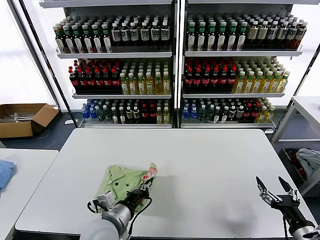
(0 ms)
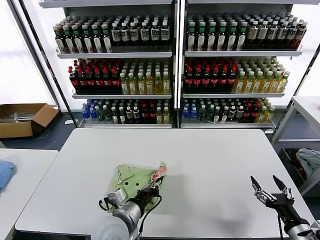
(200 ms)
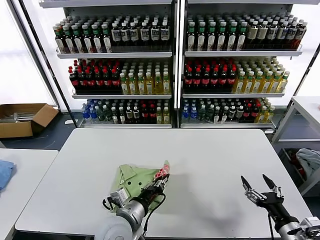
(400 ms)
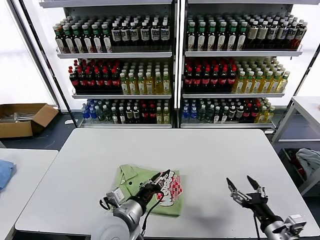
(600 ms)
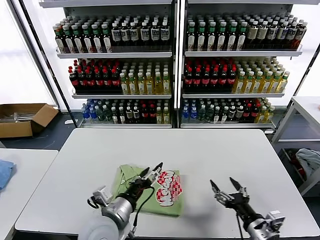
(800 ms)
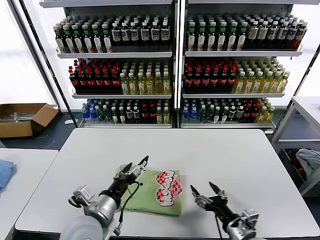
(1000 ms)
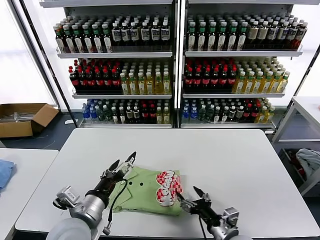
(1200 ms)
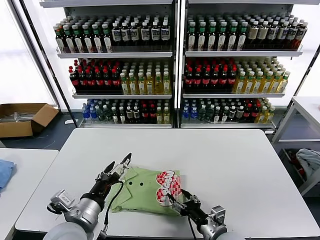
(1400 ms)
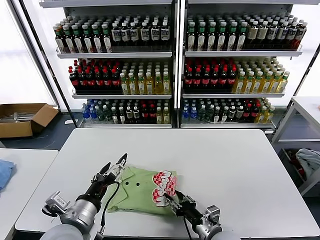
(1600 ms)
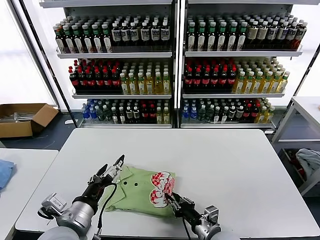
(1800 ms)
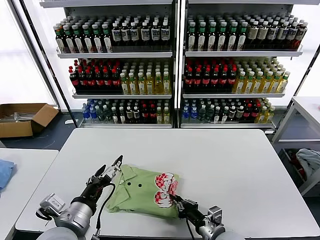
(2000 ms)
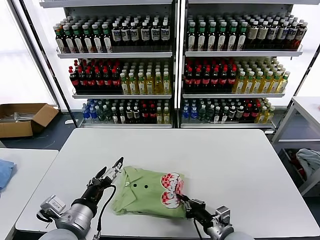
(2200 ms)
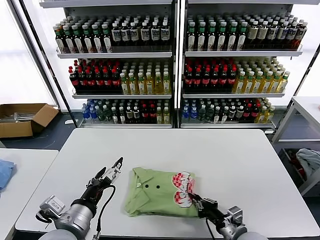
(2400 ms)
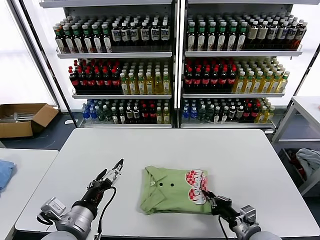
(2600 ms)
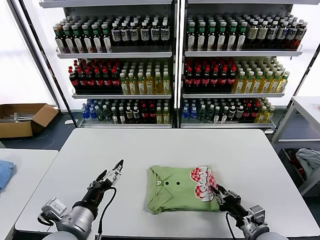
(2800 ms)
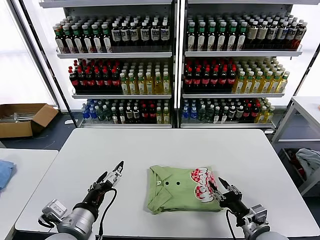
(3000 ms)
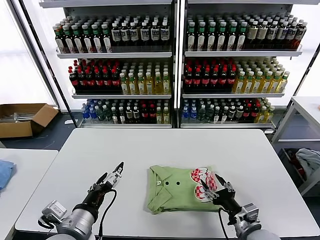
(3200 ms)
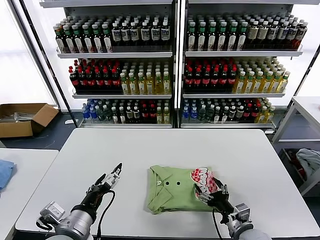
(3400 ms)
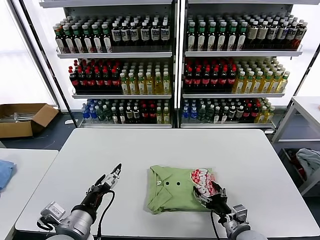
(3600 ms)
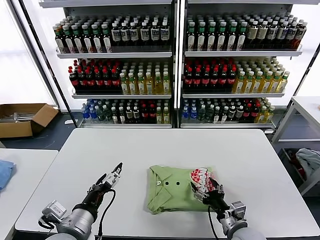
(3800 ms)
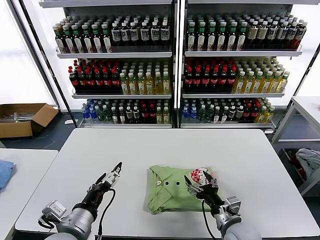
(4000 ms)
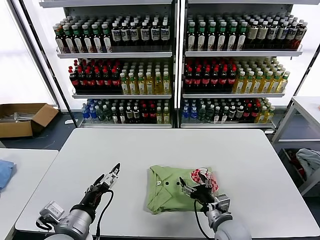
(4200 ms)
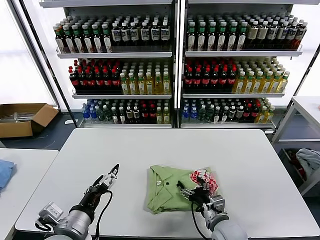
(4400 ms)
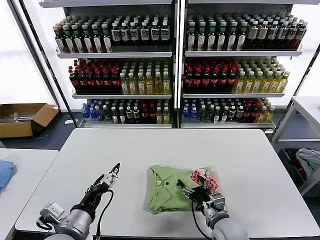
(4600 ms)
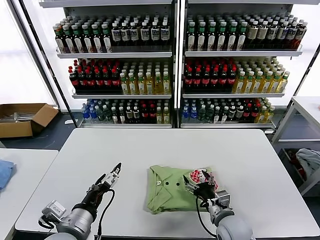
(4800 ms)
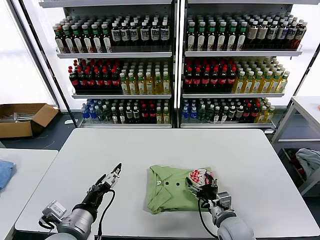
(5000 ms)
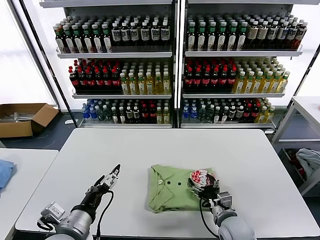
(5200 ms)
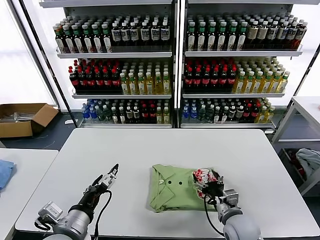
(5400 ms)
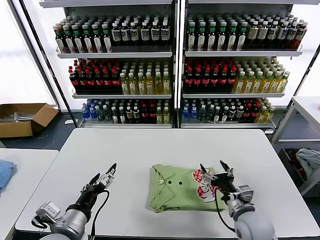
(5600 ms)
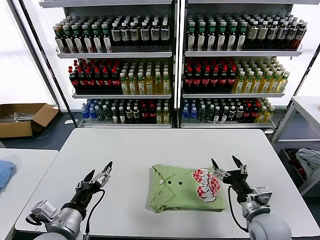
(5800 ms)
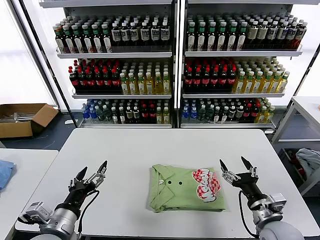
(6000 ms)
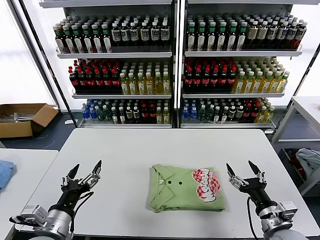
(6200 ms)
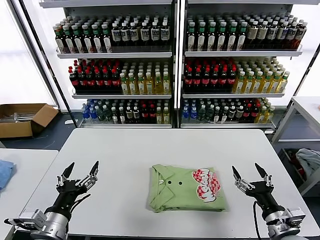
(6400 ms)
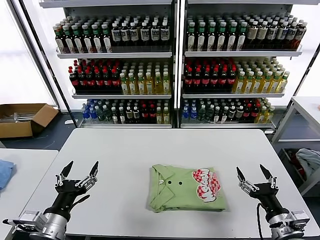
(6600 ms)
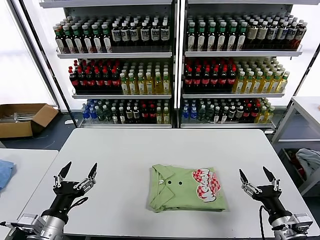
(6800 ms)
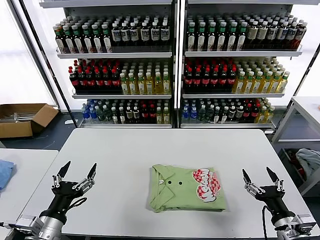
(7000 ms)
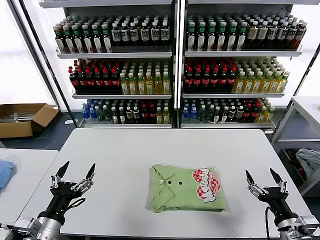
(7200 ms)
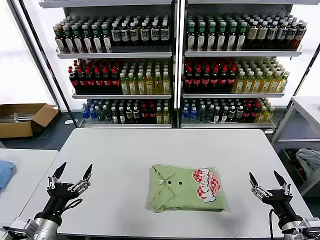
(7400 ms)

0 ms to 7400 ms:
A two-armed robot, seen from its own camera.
Task of the whole recording: fold and organize the clothes.
Step, 800 ms to 5400 ms: Drag the clothes to the center of the table.
0 ms to 1400 ms: The left gripper goes roughly 5 cm upward, and opens up. Meanwhile the right gripper travels to the left by some 20 cm.
1400 ms to 3000 ms: The right gripper heads to the right, covering some 10 cm, and closes up.
3000 ms to 4400 ms: The right gripper moves to the left, approximately 10 cm, and opens.
4400 ms to 6000 ms: The right gripper travels to the right and upward by approximately 15 cm.
6000 ms to 7400 ms: The right gripper heads backward and to the right, covering some 10 cm. The left gripper ends up about 5 cm from where it was.

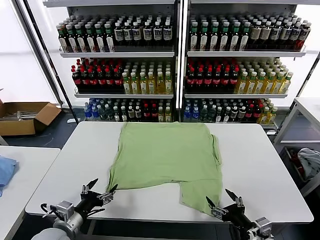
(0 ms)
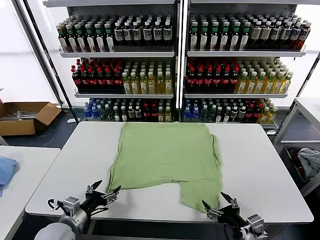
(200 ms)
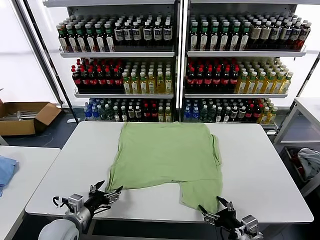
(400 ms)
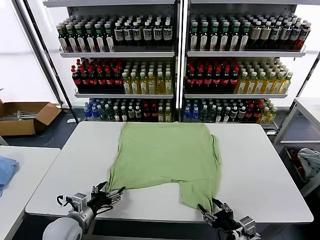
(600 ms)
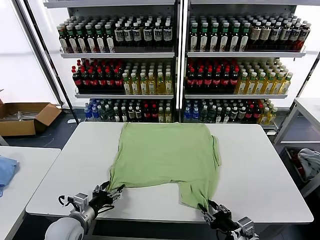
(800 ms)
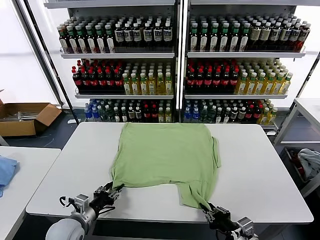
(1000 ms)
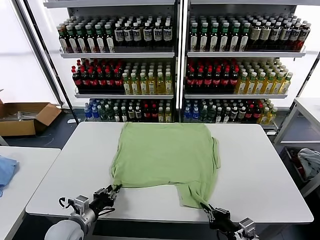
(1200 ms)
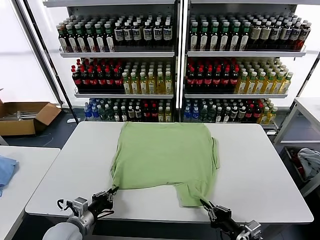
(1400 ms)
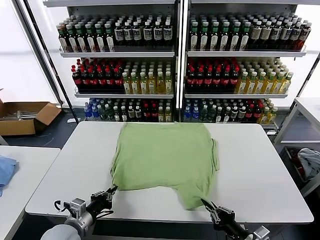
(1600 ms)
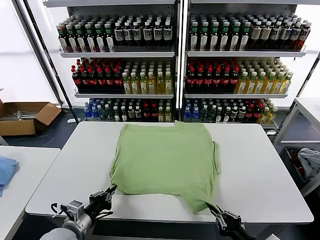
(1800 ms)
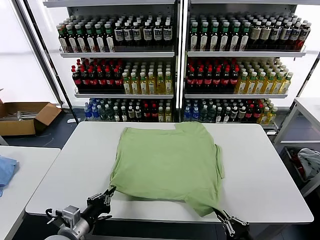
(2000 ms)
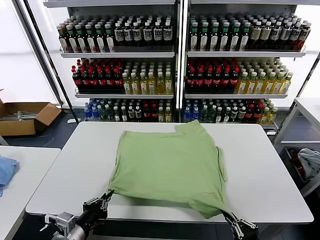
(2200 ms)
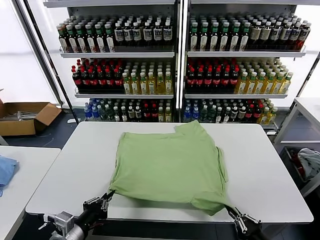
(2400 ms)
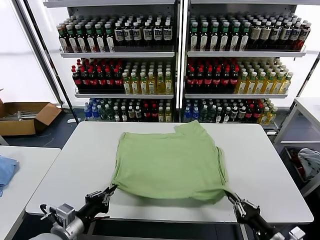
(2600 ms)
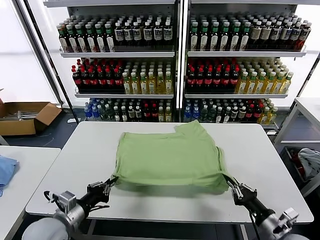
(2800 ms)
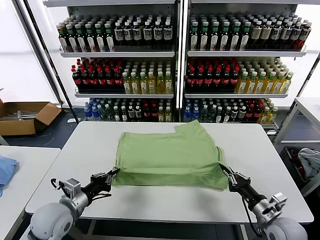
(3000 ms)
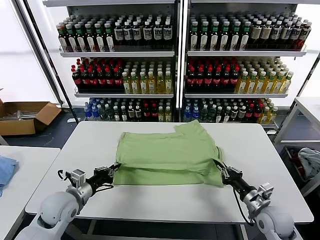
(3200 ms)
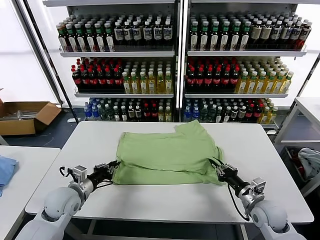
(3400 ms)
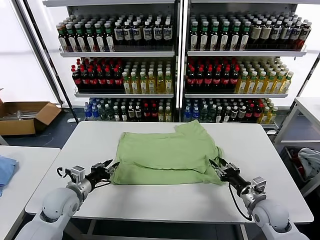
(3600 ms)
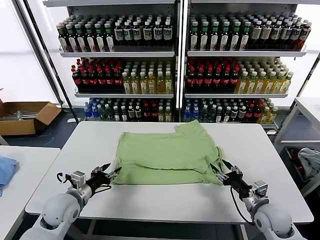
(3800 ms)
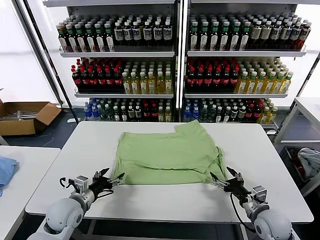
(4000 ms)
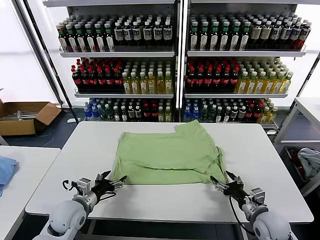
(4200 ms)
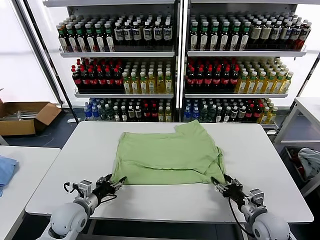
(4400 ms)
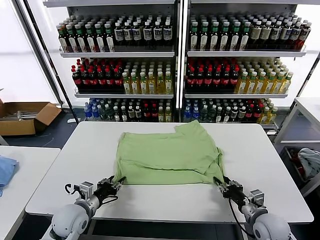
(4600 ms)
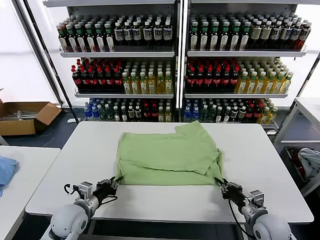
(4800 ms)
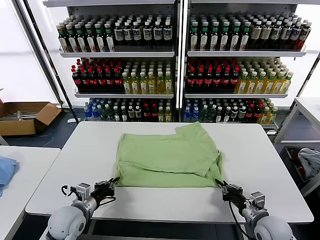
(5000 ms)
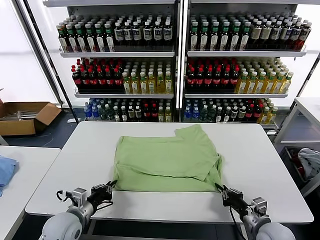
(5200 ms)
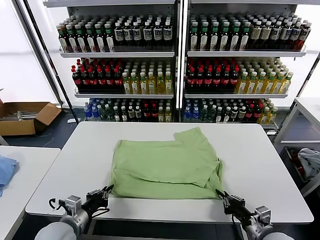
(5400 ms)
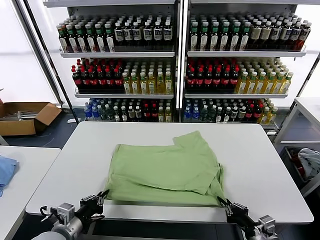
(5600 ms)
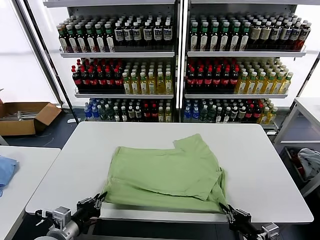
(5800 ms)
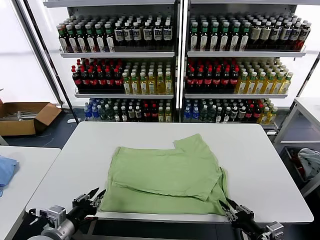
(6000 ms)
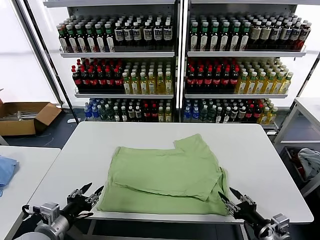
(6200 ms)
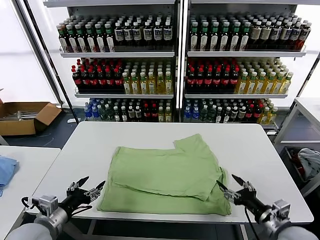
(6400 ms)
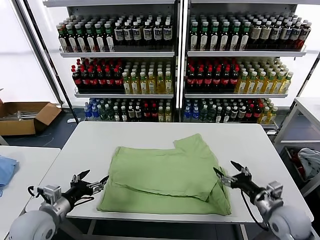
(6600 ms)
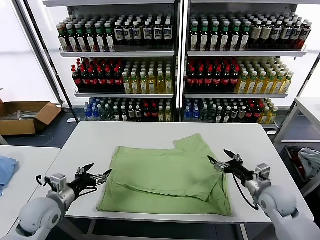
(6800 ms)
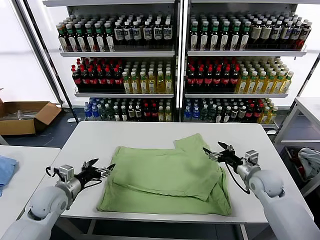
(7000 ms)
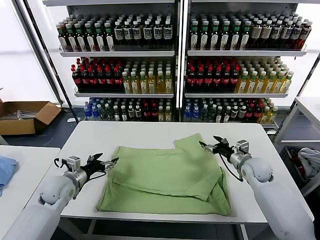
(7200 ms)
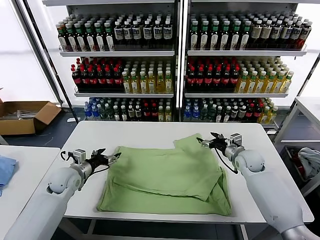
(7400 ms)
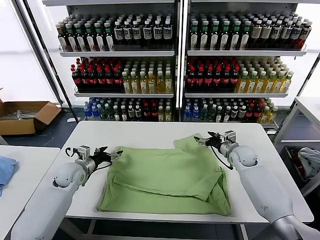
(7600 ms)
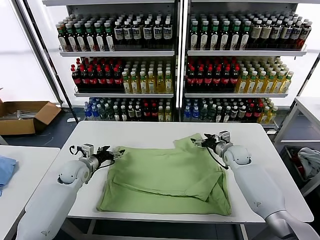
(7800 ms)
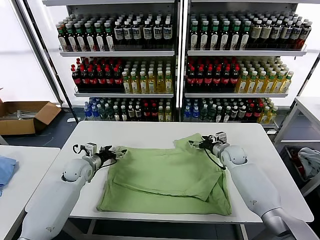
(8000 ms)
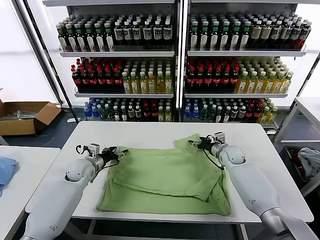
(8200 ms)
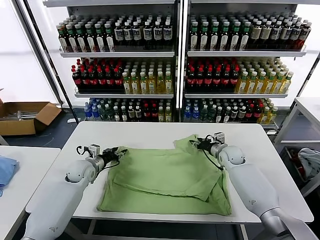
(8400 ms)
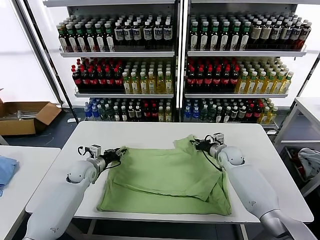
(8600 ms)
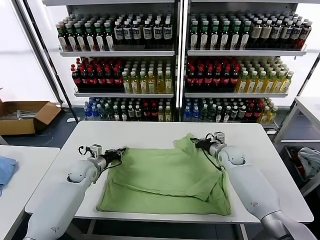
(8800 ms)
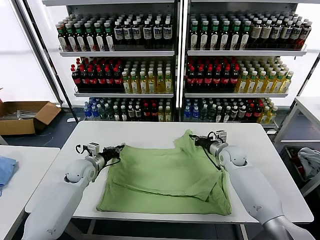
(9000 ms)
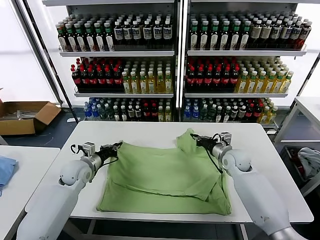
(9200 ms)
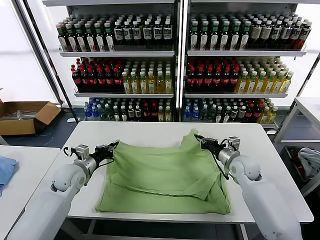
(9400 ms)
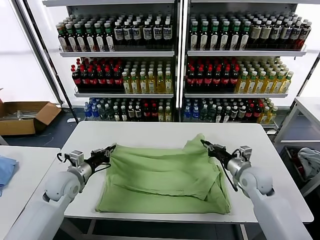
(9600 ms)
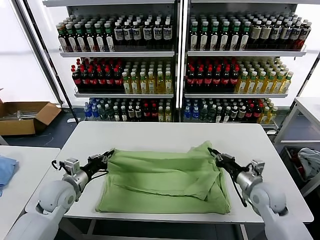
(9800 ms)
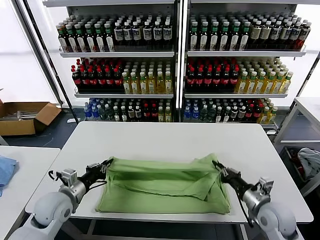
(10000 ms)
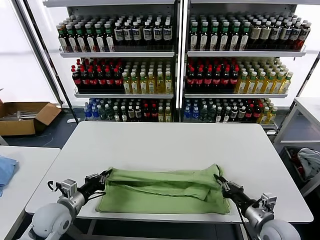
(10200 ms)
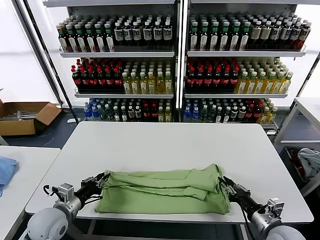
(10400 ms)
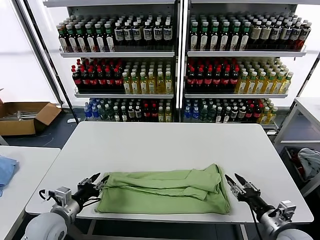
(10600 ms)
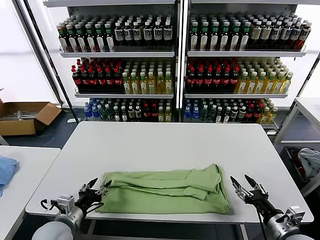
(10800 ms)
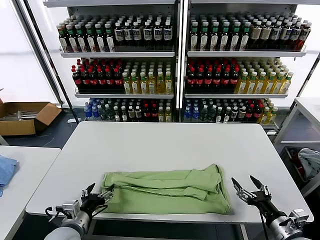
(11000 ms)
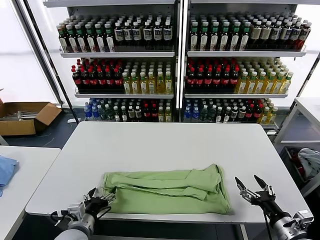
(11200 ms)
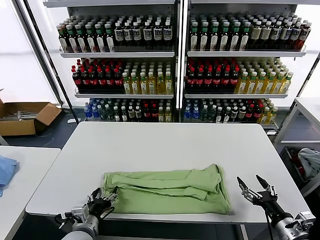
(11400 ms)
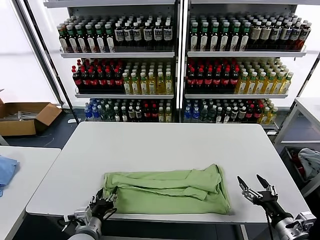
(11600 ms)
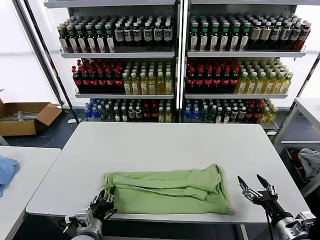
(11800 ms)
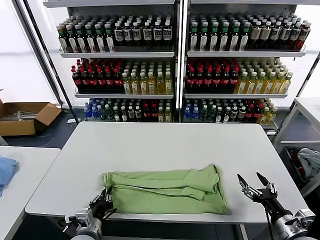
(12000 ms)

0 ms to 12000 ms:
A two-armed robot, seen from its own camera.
Task of the whole recording: fold and organize the clothes.
Step, 0 ms to 1400 ms: use both grippers simultaneously to clamp the lower edge of the clothing fabric.
Step, 1600 ms to 3600 ms: use both grippers to drag the lower edge of the fabric forward and fold it over the upper edge.
Step, 4000 ms to 6000 ms: Drag the clothes downward with both gripper.
Step, 6200 ms to 8800 ms: use both grippers simultaneously to clamp the upper edge of the clothing fabric.
Step, 9000 ms to 10400 ms: use both grippers to drag the upper edge of the fabric backward and fold it over the lower edge.
1600 ms to 3000 ms: The right gripper shifts some 15 cm forward. Meanwhile the left gripper travels forward by approximately 5 cm.
3000 ms to 4400 ms: The left gripper shifts roughly 5 cm downward, and opens its fingers, while the right gripper opens up.
4400 ms to 6000 ms: The right gripper is displaced backward by approximately 10 cm, and closes and opens again, while the left gripper moves backward and upward, roughly 15 cm.
6000 ms to 7600 ms: Both grippers move forward, roughly 30 cm. The right gripper opens, while the left gripper opens.
7600 ms to 9000 ms: The right gripper closes up. The left gripper closes.
9000 ms to 10400 ms: The right gripper travels backward by some 30 cm, and opens its fingers. Meanwhile the left gripper travels backward by roughly 20 cm.
10400 ms to 12000 ms: The right gripper ends up approximately 5 cm from where it was, and opens. Meanwhile the left gripper travels to the right, downward and backward by approximately 10 cm, and opens, then closes once more.

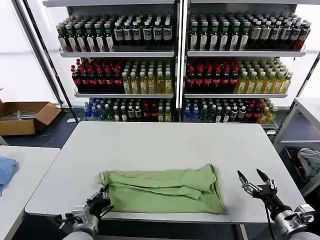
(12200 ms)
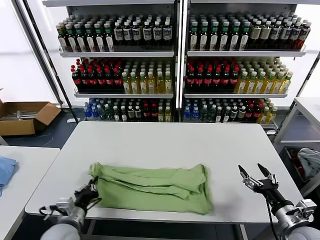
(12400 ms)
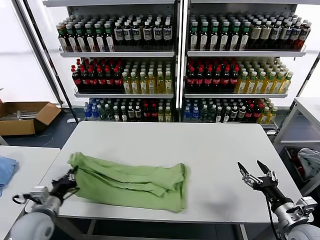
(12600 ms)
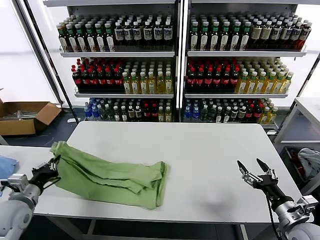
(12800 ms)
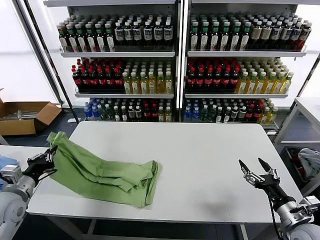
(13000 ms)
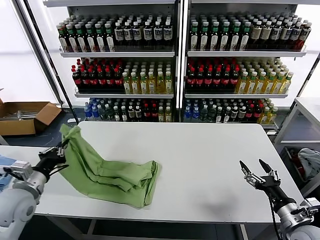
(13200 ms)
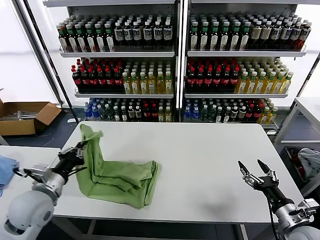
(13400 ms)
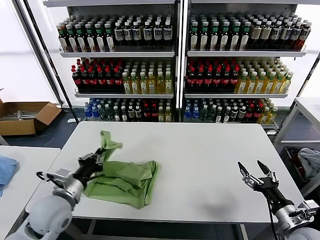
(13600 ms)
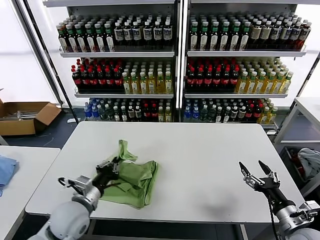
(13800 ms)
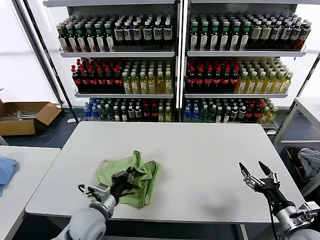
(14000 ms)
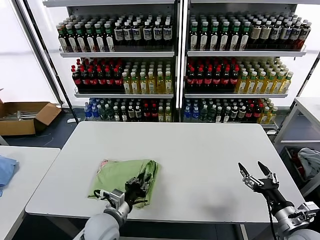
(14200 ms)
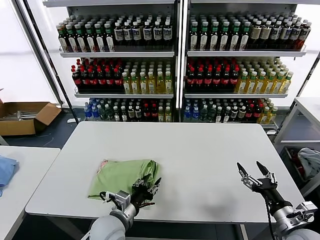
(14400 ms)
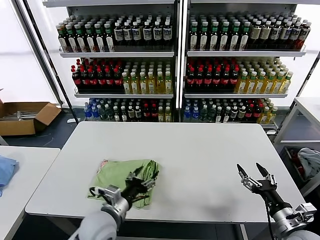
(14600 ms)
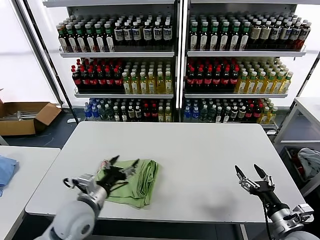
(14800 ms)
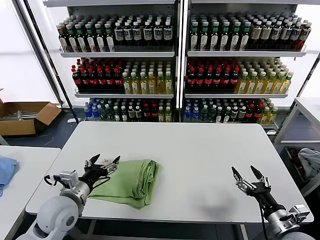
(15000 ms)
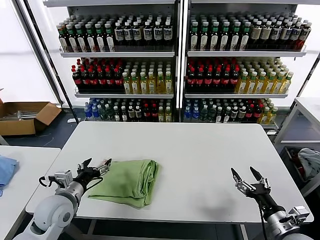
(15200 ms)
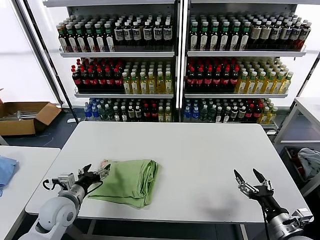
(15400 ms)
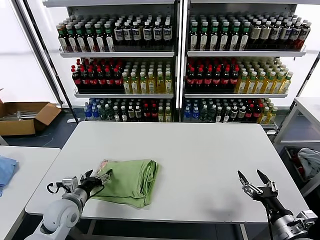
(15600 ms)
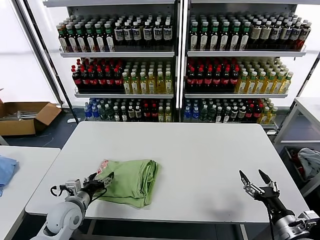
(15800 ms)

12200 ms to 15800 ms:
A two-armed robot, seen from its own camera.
Task of the whole recording: fold and organize the clothes.
Step, 12200 ms to 14400 ms: use the left gripper to drag the left edge of the fabric to the left and folds it over the right edge.
12200 ms to 14000 ms: The left gripper moves forward, roughly 5 cm, and goes to the left and returns, some 20 cm each way.
14000 ms to 15800 ms: The left gripper heads to the left, covering approximately 10 cm, and opens its fingers.
